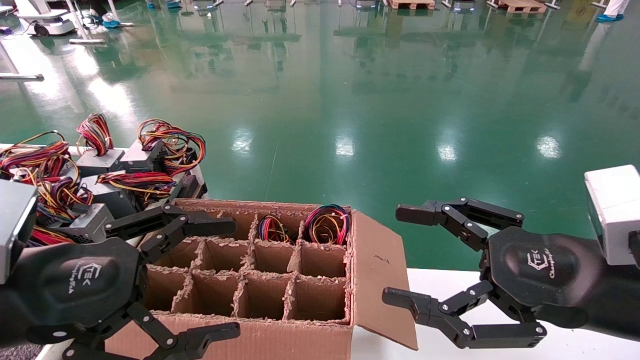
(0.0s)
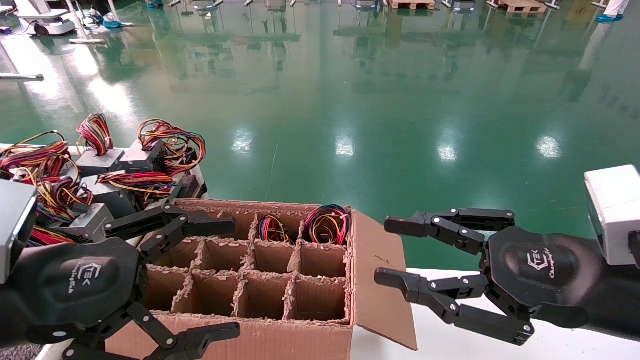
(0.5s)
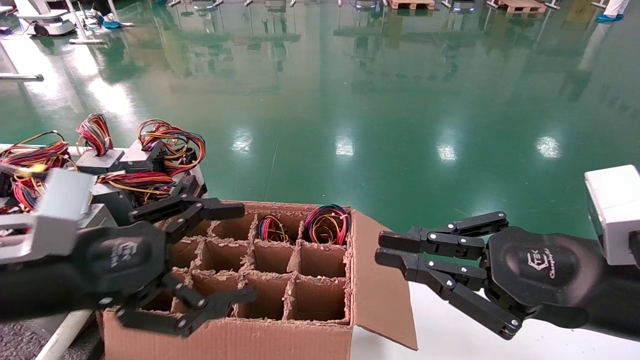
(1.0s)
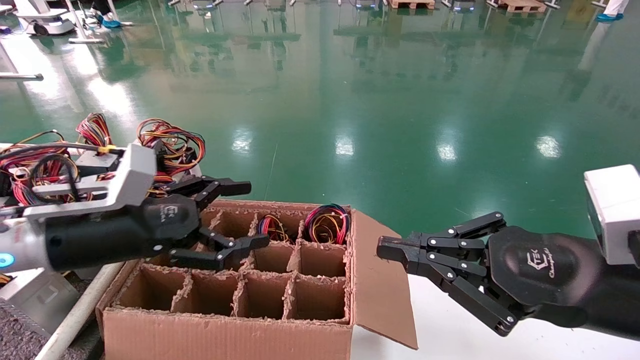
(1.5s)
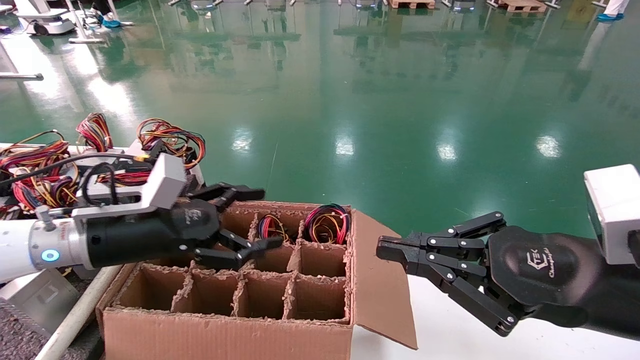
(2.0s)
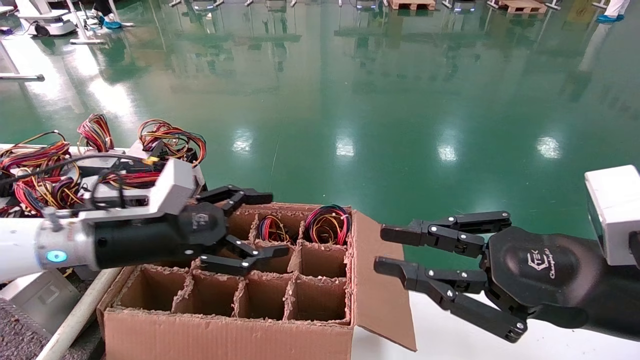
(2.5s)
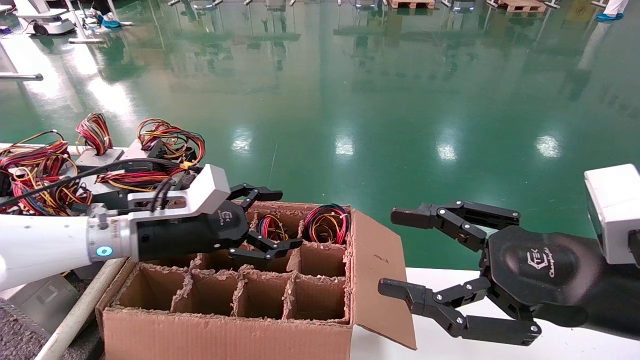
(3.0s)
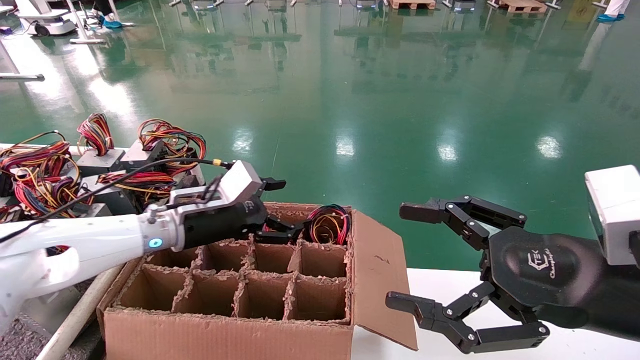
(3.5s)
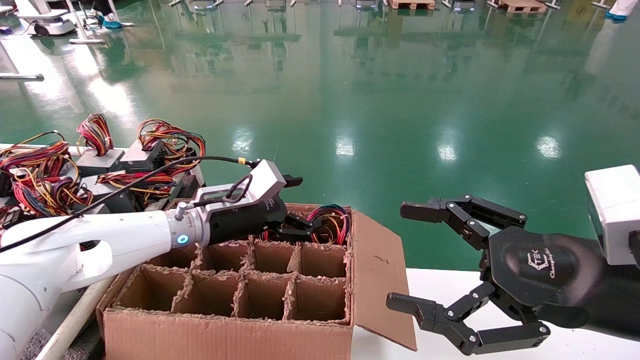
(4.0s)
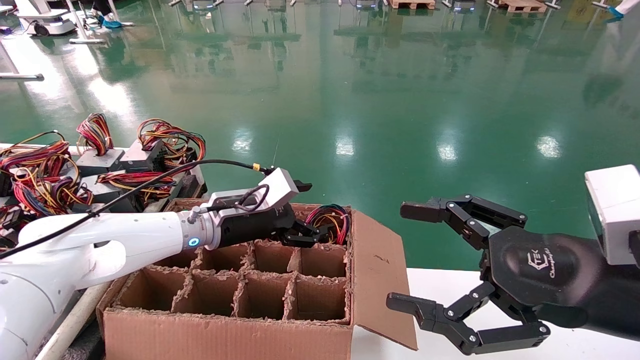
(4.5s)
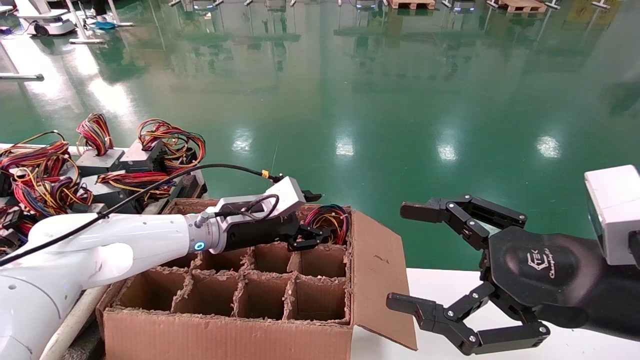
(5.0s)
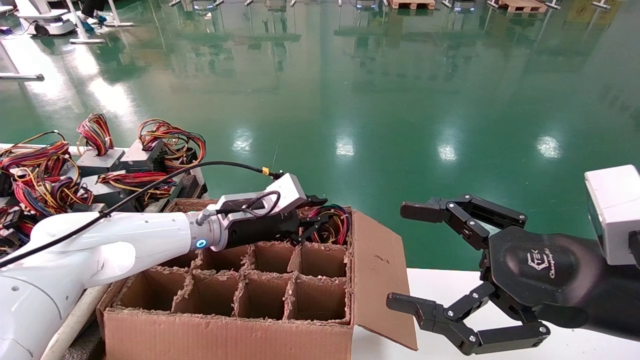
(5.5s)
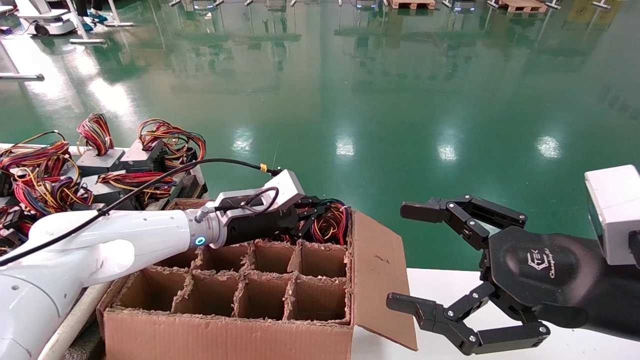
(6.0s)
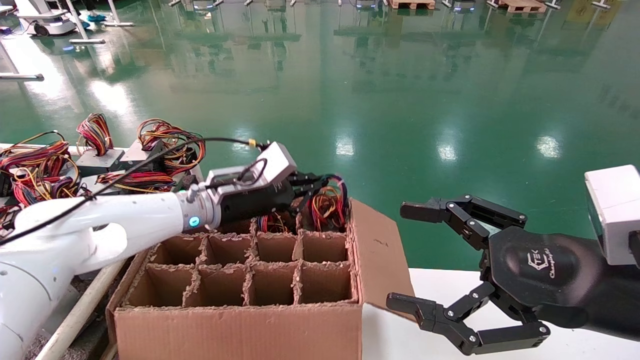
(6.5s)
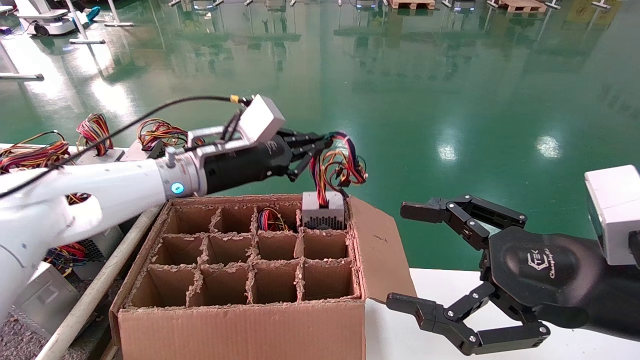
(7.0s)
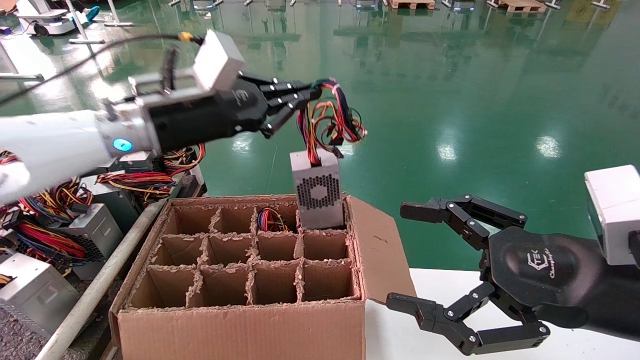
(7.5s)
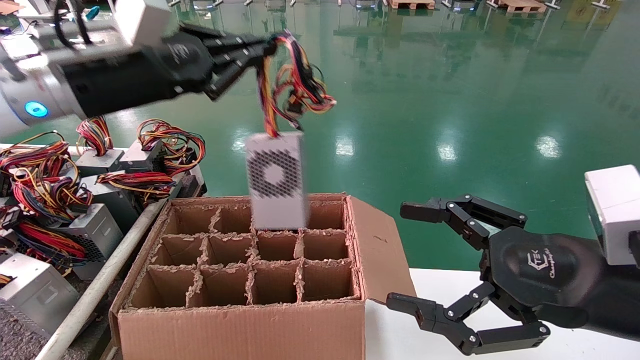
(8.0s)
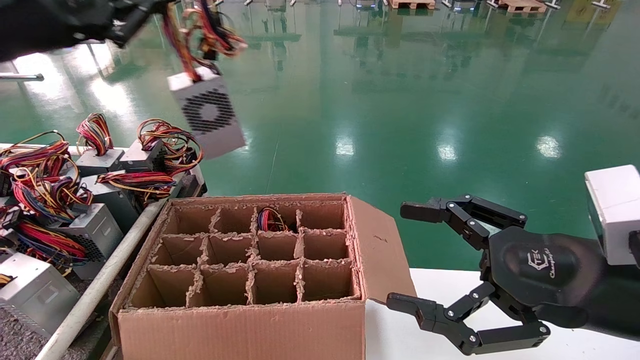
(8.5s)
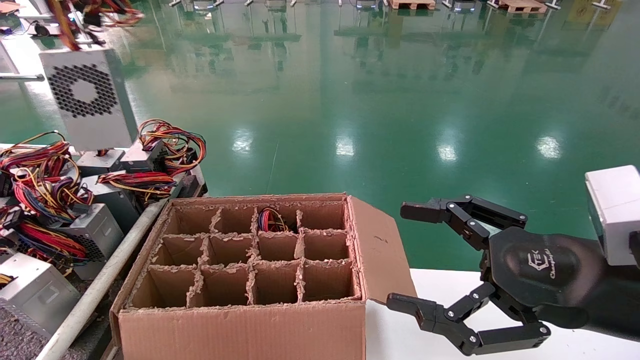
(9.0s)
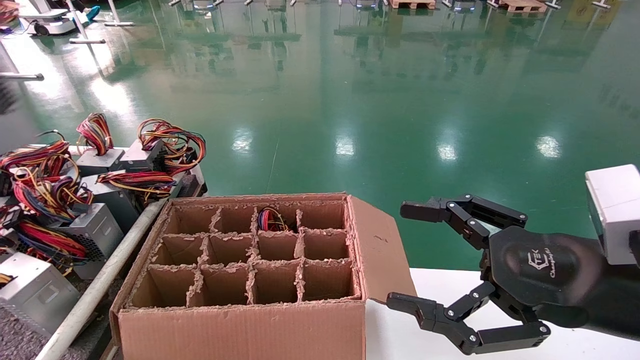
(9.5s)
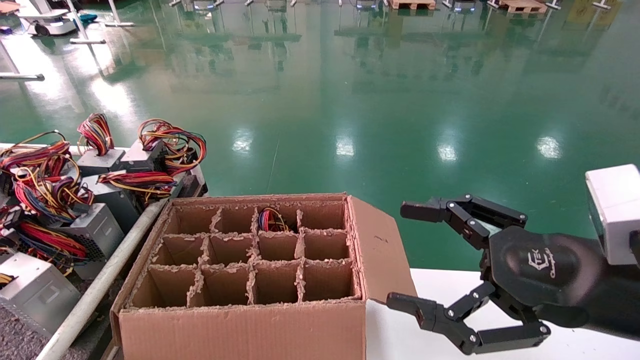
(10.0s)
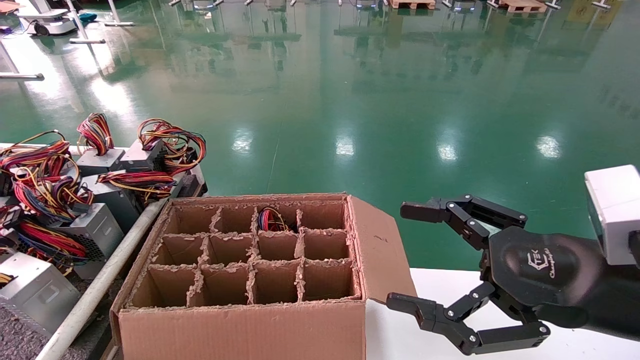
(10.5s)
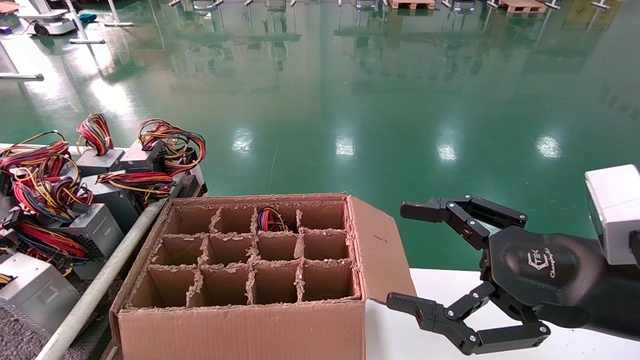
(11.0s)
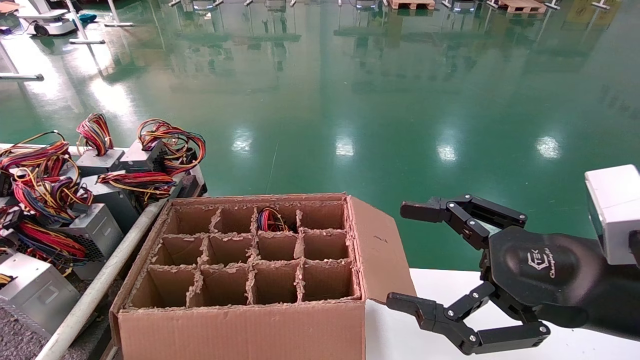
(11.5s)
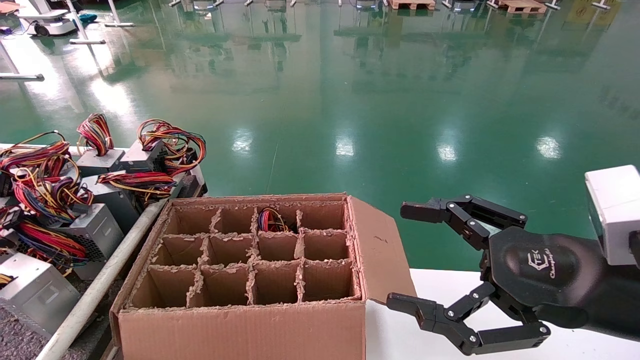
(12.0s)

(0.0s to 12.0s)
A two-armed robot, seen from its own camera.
Step, 1.5s - 6.0s: Grab and lift the power supply from the large box.
0.0s - 2.0s: The right gripper closes its fingers; the left gripper heads forward, covering roughly 15 cm.
2.0s - 4.0s: The left gripper travels forward and to the right by roughly 15 cm; the right gripper opens up.
4.0s - 6.0s: The left gripper closes its fingers.
6.0s - 8.0s: The left gripper is displaced upward, to the left and backward by about 25 cm.
8.0s - 10.0s: The left gripper shifts roughly 40 cm to the left and backward.

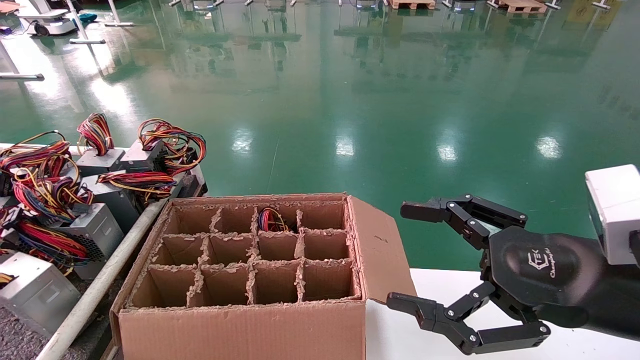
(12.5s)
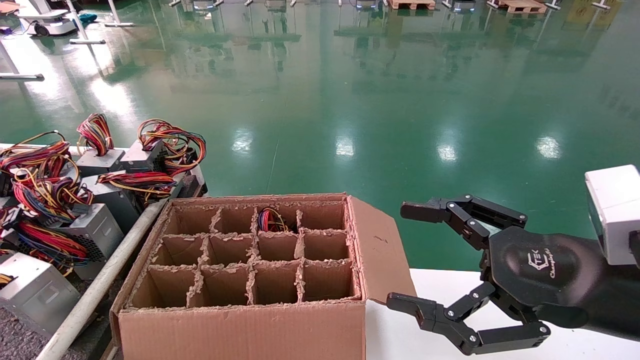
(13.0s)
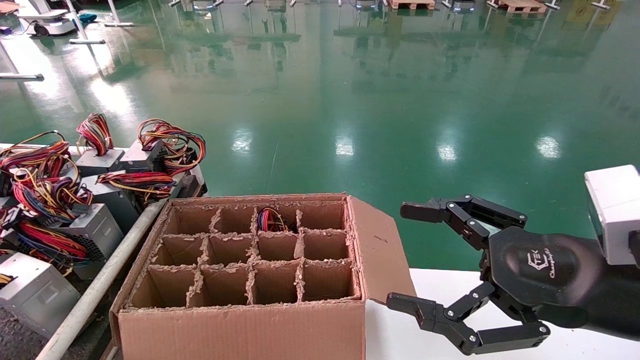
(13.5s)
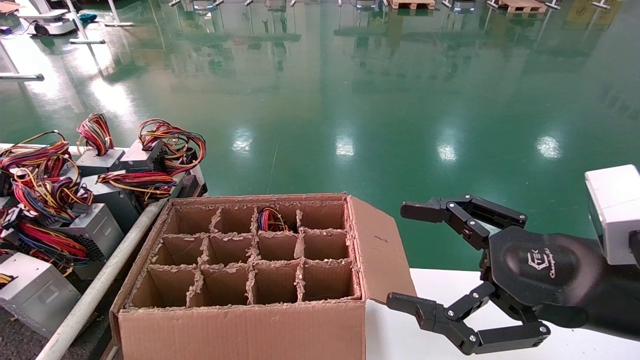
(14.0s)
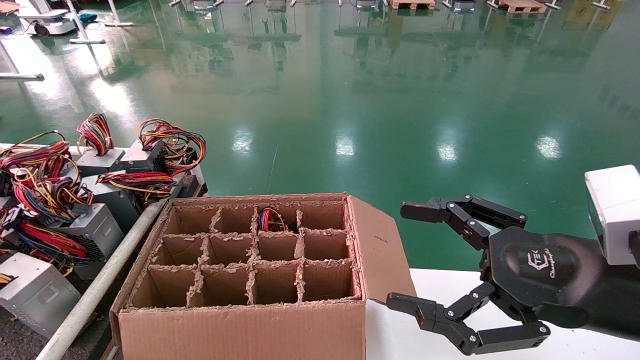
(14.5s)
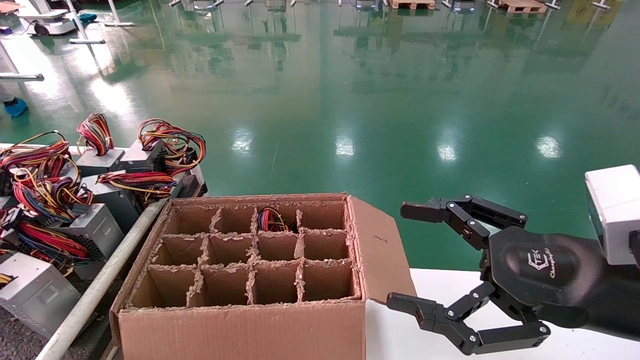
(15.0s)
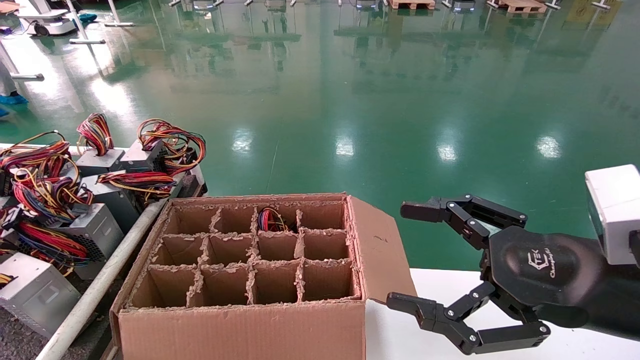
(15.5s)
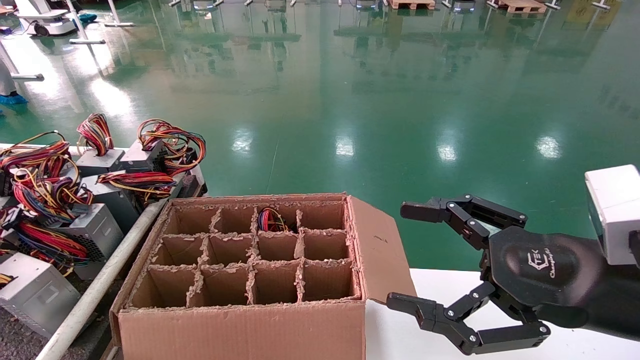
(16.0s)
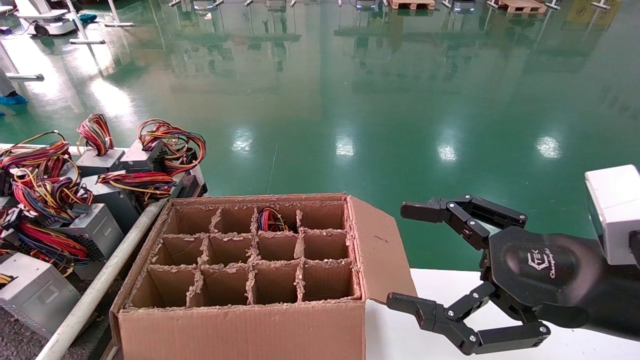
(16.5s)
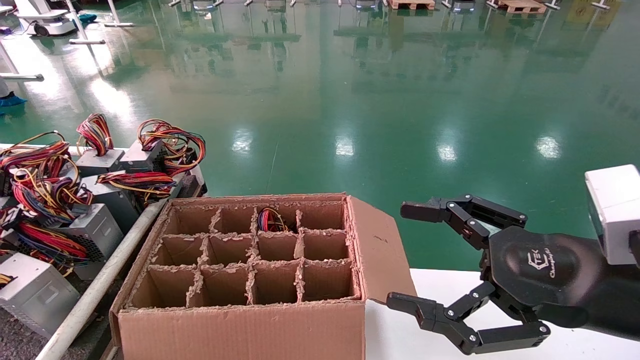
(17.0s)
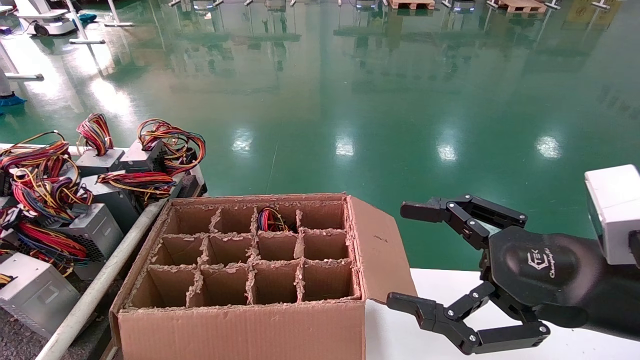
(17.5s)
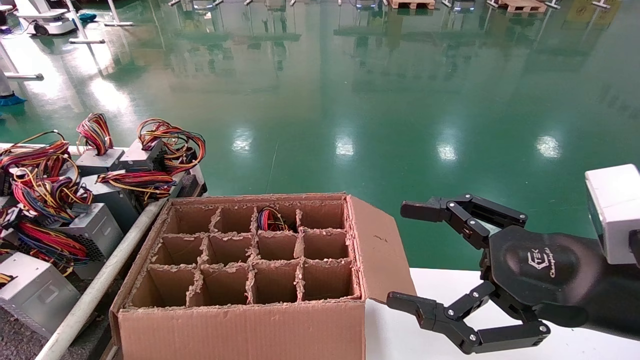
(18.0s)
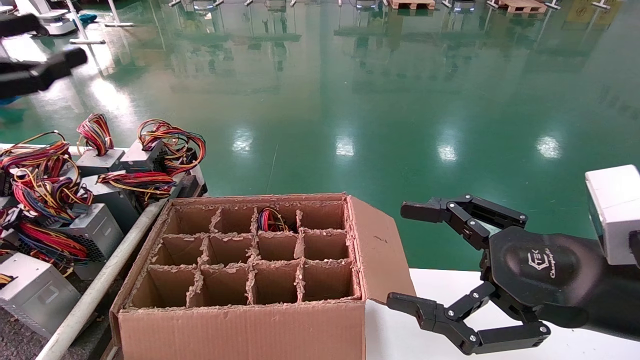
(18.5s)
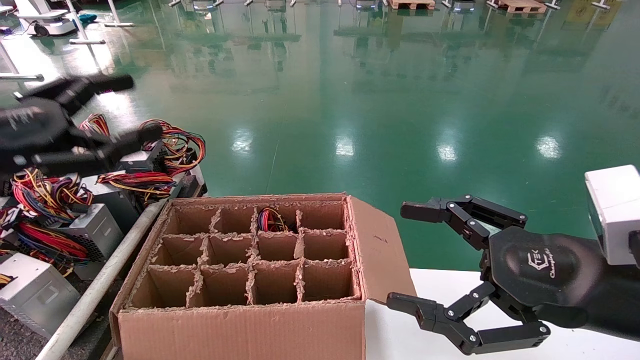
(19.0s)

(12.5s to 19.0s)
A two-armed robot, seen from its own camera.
12.5s - 14.5s: The left gripper moves forward and downward, approximately 15 cm.
17.0s - 19.0s: The left gripper moves to the right, roughly 25 cm.
